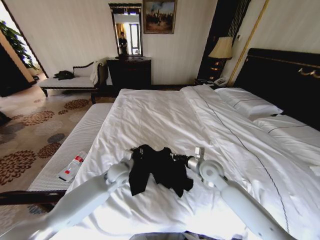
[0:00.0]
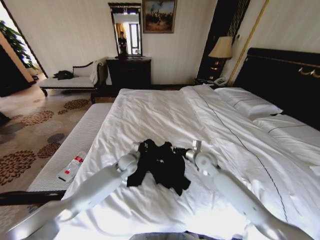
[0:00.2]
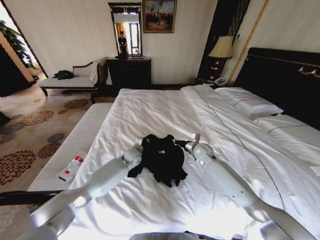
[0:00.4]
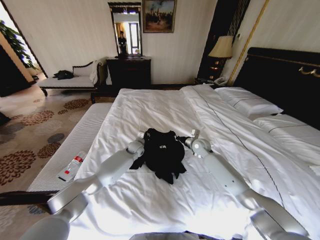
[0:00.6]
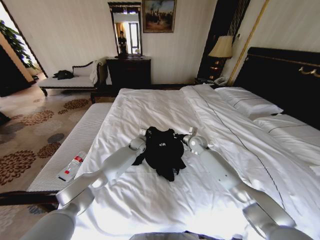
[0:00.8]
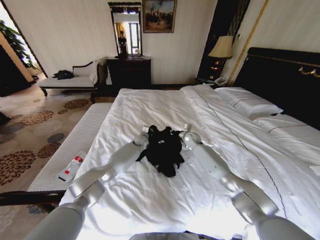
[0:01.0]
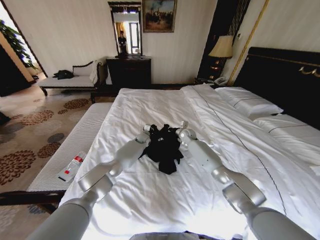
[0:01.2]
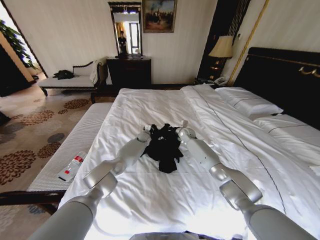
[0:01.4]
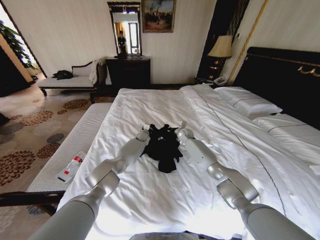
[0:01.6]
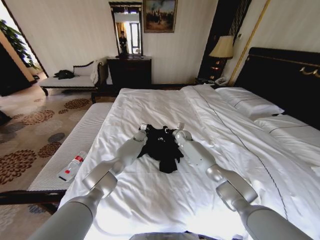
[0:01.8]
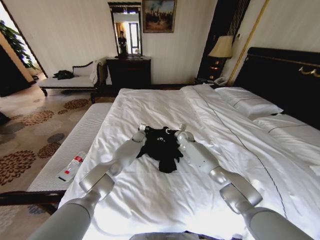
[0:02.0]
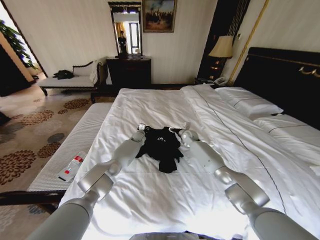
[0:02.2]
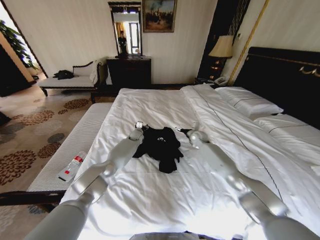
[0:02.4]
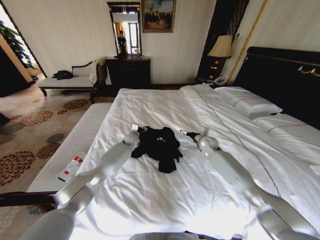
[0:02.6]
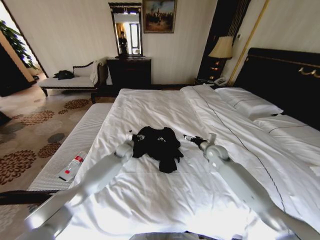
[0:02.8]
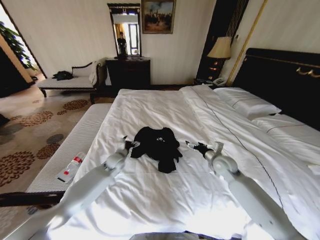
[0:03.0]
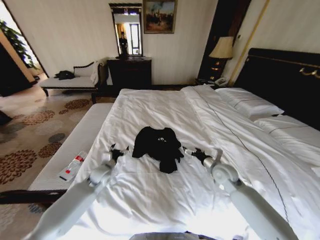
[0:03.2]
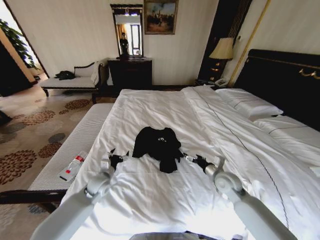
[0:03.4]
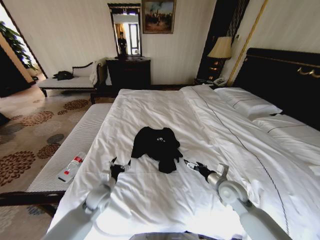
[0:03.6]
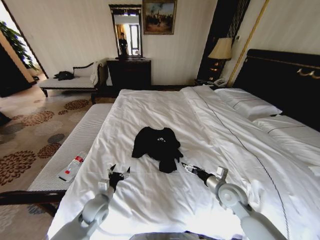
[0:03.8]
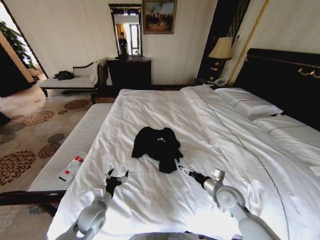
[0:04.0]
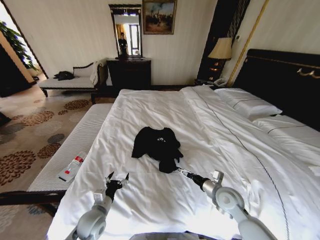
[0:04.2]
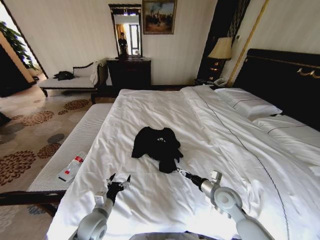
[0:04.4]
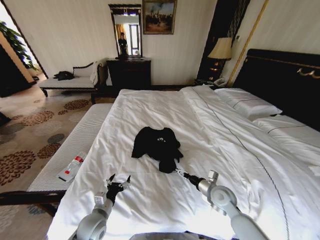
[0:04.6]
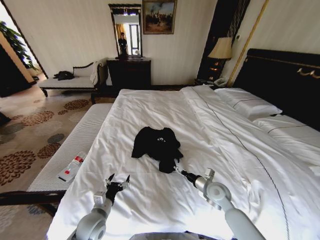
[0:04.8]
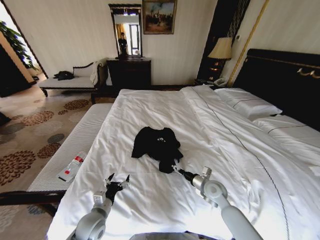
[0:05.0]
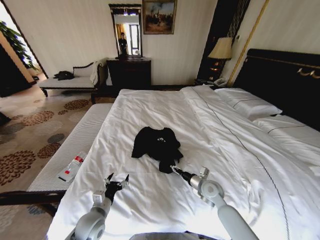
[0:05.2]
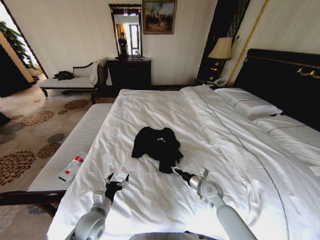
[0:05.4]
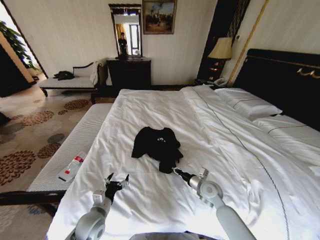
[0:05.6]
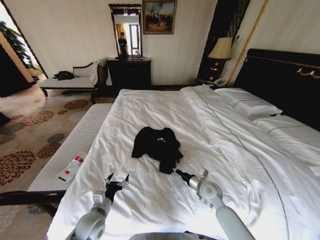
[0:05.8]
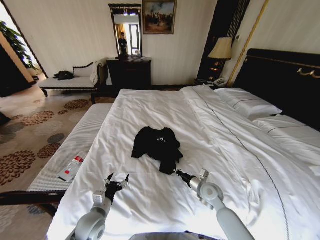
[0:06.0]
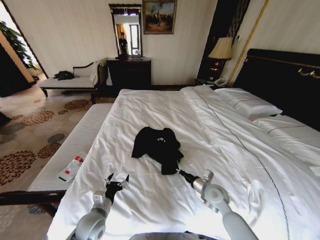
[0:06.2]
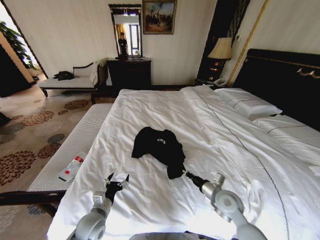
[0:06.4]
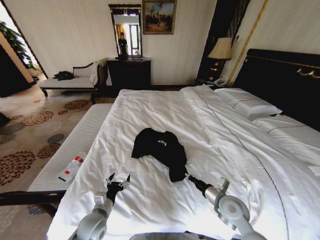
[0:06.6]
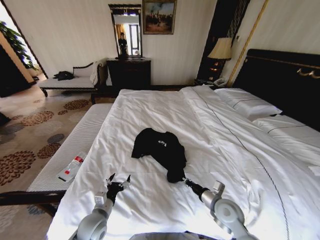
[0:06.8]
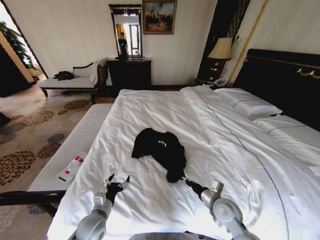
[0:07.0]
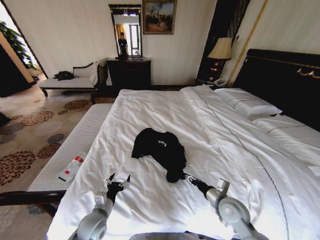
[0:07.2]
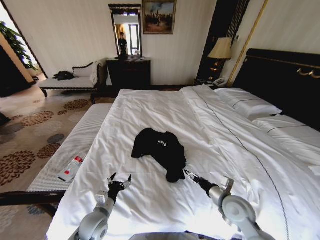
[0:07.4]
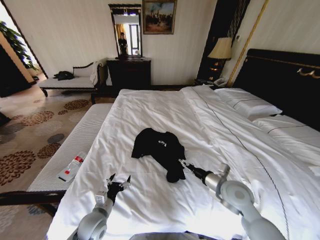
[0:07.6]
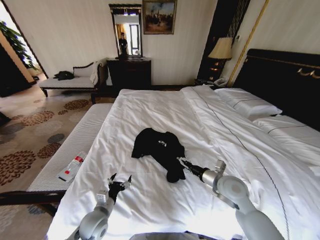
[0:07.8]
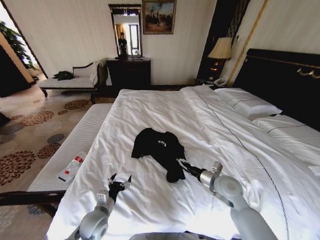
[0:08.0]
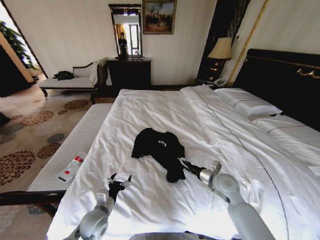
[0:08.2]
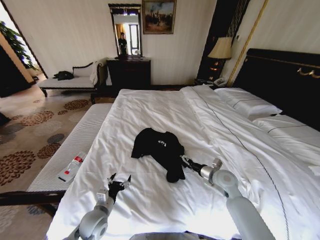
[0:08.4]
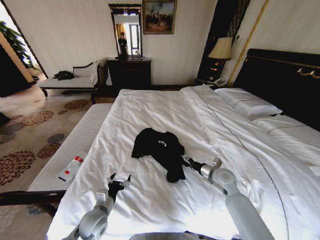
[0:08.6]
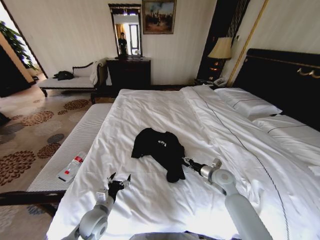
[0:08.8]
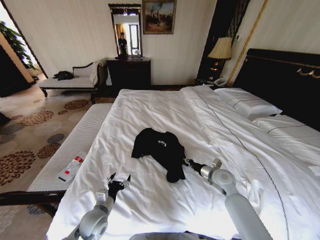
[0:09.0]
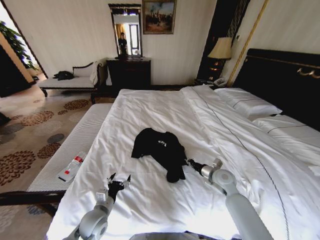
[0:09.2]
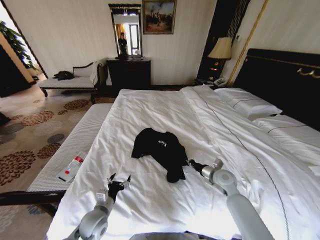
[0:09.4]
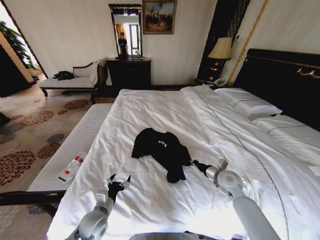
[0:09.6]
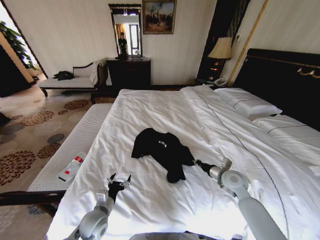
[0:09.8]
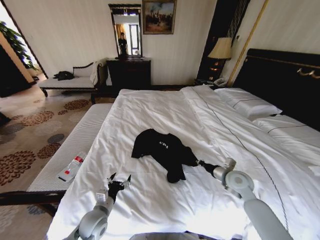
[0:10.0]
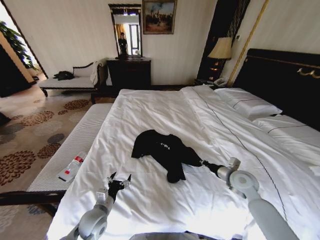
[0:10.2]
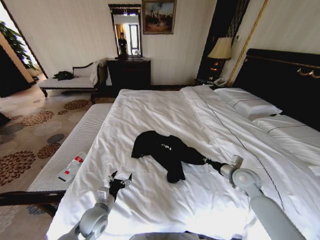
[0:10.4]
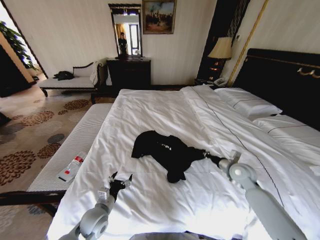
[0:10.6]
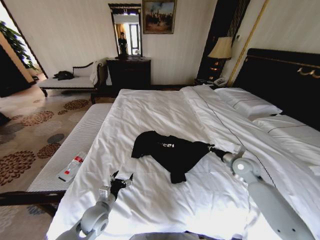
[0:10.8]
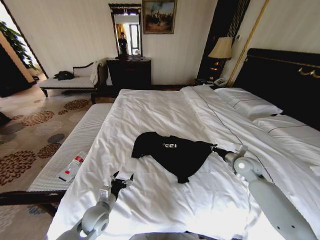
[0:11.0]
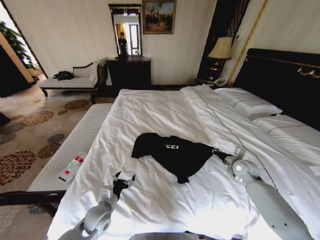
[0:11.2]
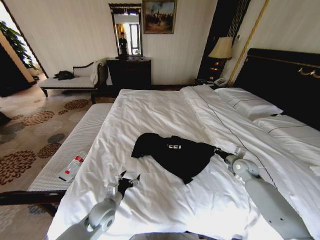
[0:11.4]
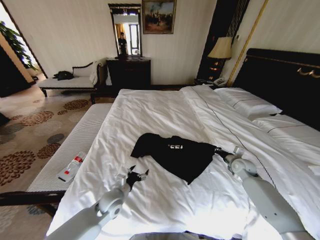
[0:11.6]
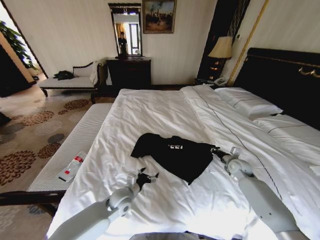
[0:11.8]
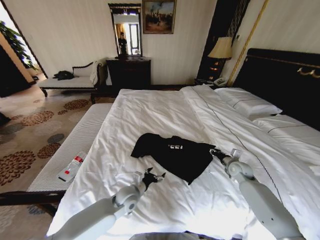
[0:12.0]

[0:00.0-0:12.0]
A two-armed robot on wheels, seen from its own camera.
Task of the whole recording: Fold the clothes on the bed.
0.0 to 1.6 s: Both grippers move forward, roughly 25 cm.
1.6 to 3.0 s: The right gripper goes approximately 25 cm backward and to the right, and opens, while the left gripper heads backward and to the left, covering some 25 cm, and opens.
3.0 to 4.4 s: The right gripper goes roughly 10 cm backward. The left gripper heads backward, covering about 25 cm.
4.4 to 6.0 s: The right gripper moves approximately 5 cm, and closes its fingers.
6.0 to 7.6 s: The right gripper is displaced upward and backward by some 10 cm, and opens.
7.6 to 9.0 s: The right gripper shifts approximately 10 cm forward and downward, and closes.
9.0 to 10.4 s: The right gripper travels to the right by roughly 5 cm.
10.4 to 12.0 s: The right gripper is displaced forward, downward and to the right by some 10 cm, and opens up. Meanwhile the left gripper travels to the right and forward by roughly 15 cm.

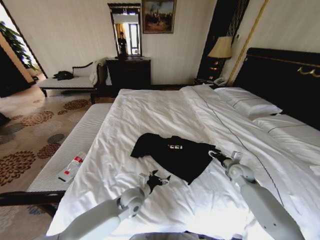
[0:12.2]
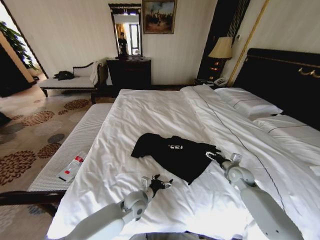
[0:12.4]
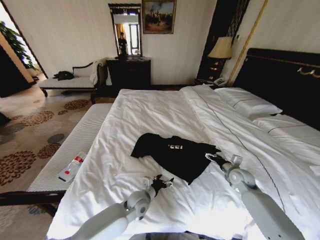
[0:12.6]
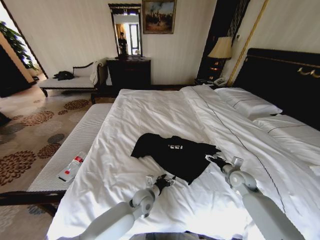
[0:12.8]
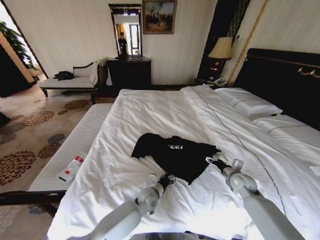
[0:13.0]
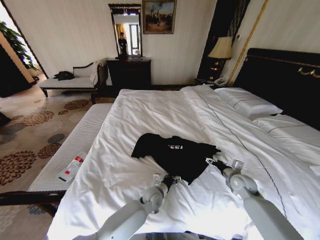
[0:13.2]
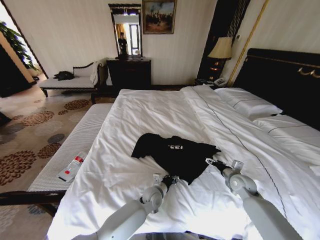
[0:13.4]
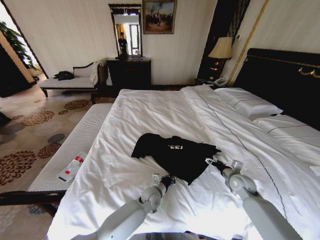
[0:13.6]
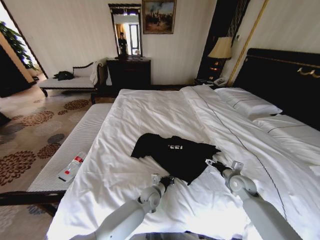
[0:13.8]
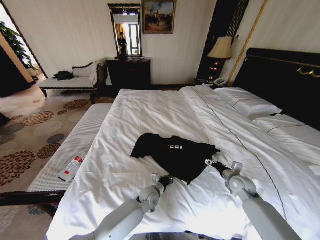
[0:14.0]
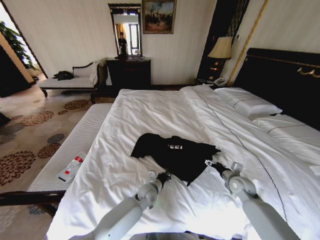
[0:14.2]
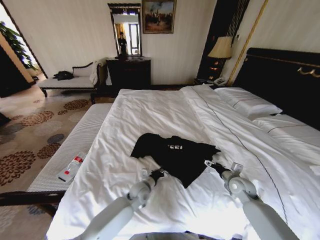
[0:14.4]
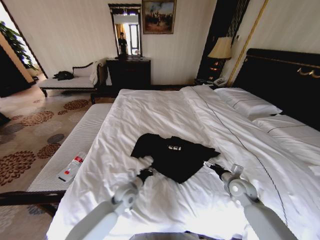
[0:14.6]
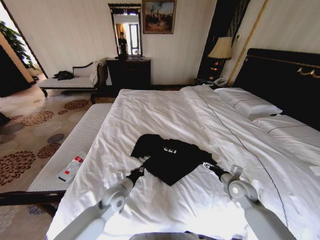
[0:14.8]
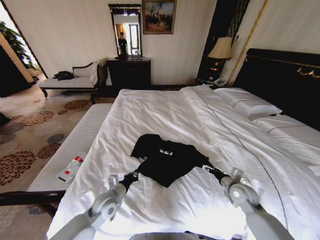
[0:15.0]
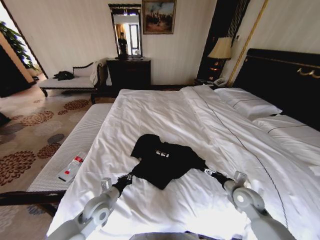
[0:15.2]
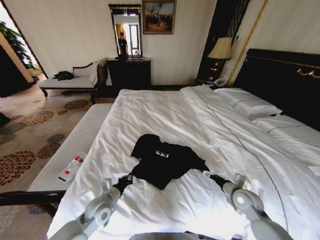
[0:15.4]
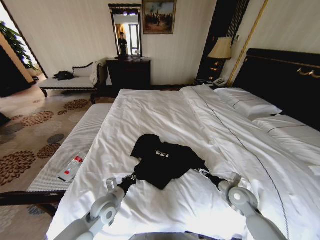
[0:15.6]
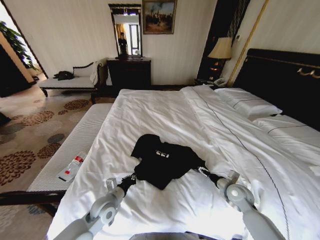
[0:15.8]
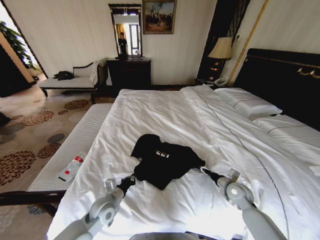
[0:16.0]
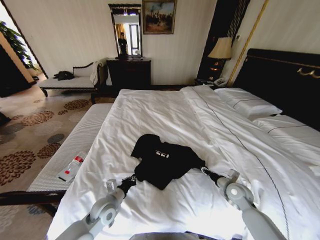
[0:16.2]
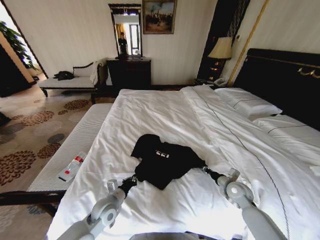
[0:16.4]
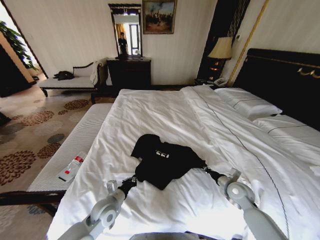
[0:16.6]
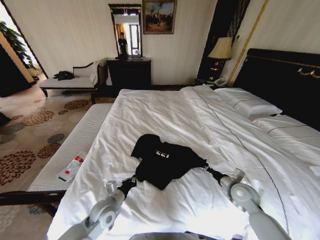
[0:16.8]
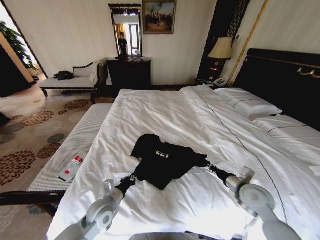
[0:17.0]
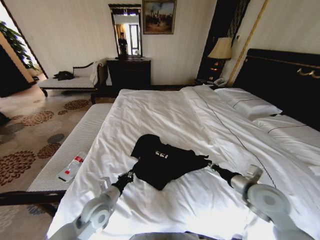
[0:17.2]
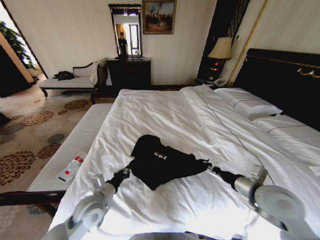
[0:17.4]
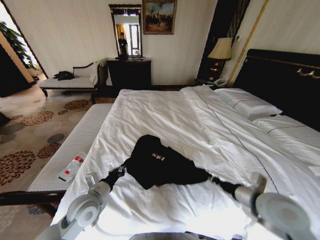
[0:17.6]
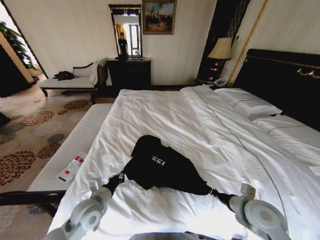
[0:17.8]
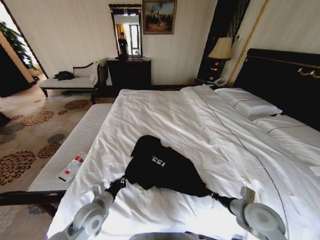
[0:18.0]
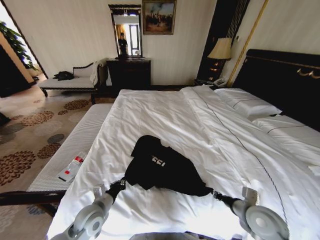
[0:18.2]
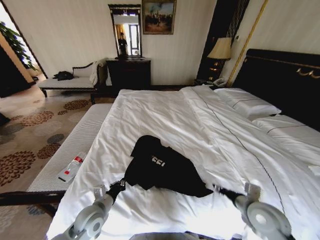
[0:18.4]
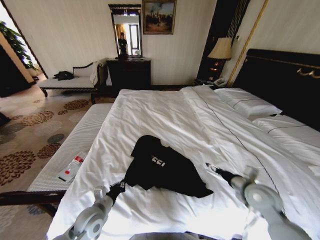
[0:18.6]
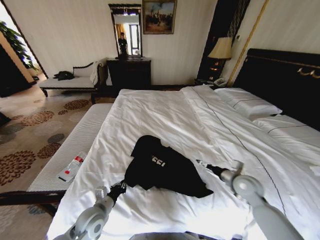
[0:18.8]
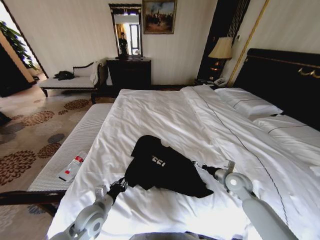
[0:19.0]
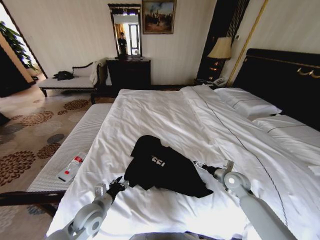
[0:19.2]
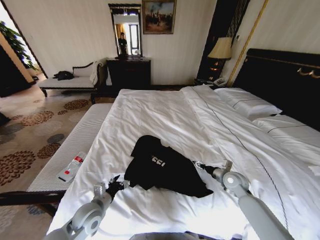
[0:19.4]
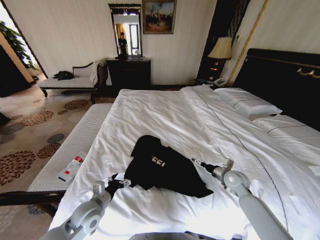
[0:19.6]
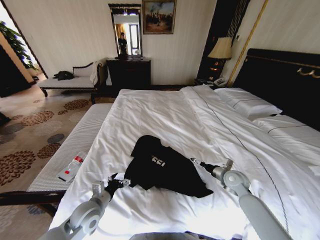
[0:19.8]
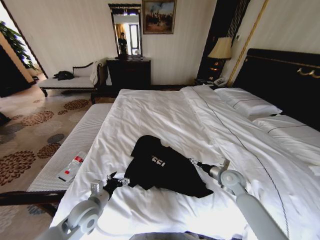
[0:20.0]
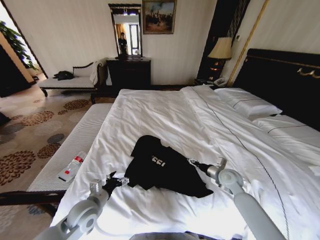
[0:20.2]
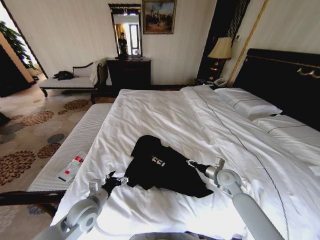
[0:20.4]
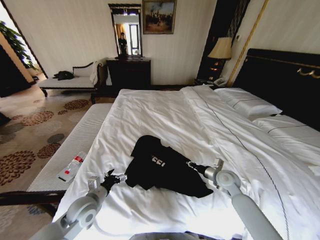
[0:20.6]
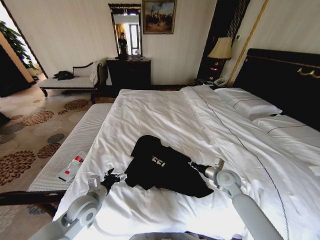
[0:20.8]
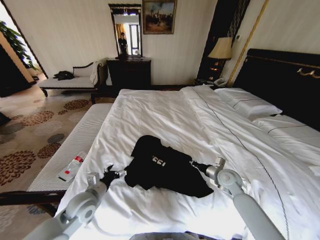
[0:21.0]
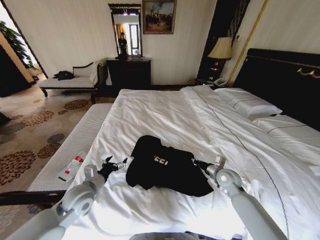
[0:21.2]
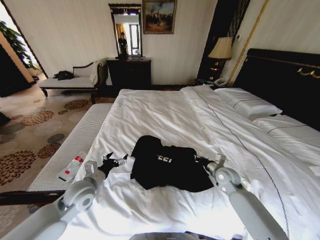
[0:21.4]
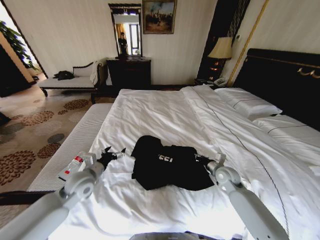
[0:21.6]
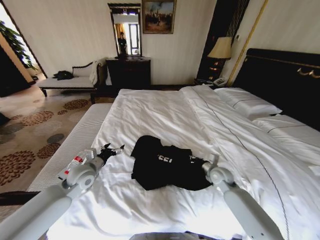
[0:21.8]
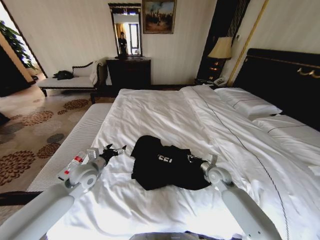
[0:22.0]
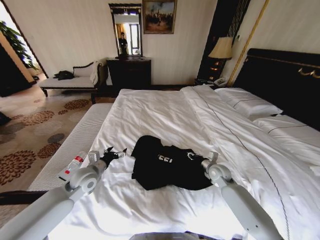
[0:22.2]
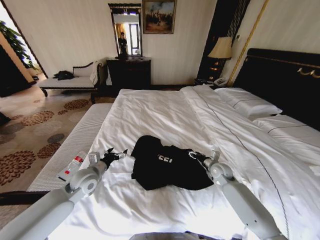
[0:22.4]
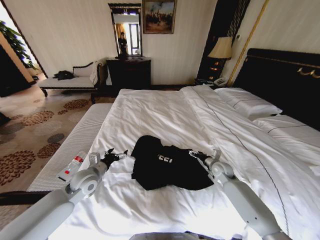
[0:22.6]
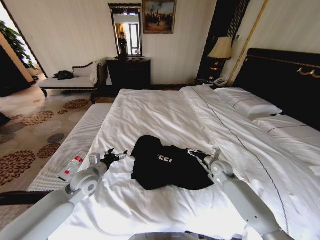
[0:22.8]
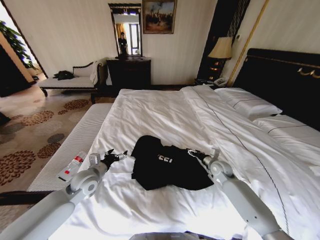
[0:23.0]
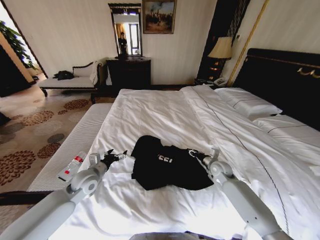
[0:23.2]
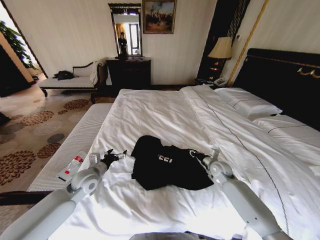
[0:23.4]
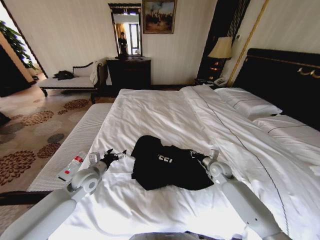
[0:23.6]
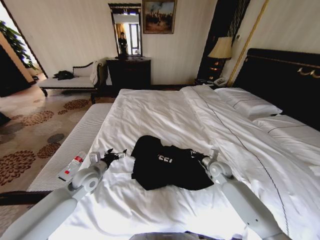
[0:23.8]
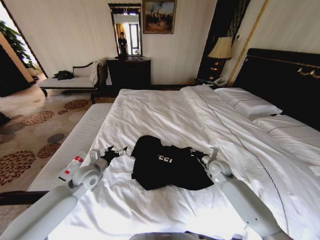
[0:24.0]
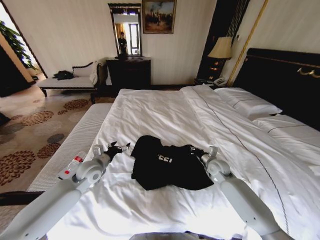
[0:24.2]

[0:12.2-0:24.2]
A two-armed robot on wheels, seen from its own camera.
Task of the whole recording: Fold the clothes on the bed.
12.2 to 13.8 s: The right gripper is displaced backward by approximately 5 cm, and opens up; the left gripper travels to the right and downward by roughly 10 cm, and closes up.
13.8 to 15.2 s: The left gripper travels to the left and upward by approximately 20 cm, while the right gripper travels backward by some 5 cm.
15.2 to 16.6 s: The right gripper closes up.
16.6 to 18.2 s: The right gripper goes approximately 15 cm backward and upward, while the left gripper goes upward and returns, about 10 cm each way.
18.2 to 19.8 s: The left gripper opens its fingers, while the right gripper goes approximately 15 cm forward, and opens up.
19.8 to 21.2 s: The right gripper closes up. The left gripper heads upward, covering approximately 5 cm.
21.2 to 22.6 s: The grippers both shift forward by about 5 cm. The right gripper opens up.
22.6 to 24.2 s: The right gripper closes up.
